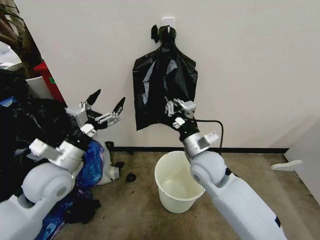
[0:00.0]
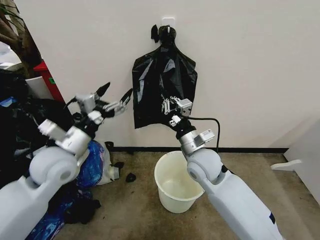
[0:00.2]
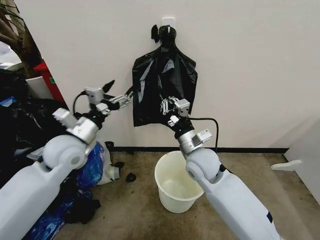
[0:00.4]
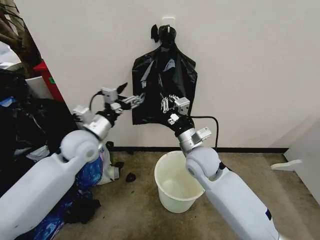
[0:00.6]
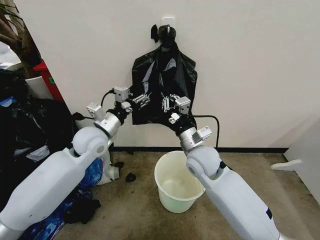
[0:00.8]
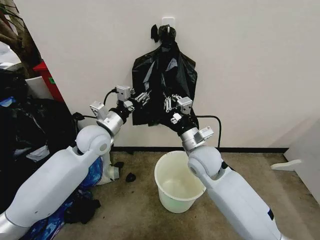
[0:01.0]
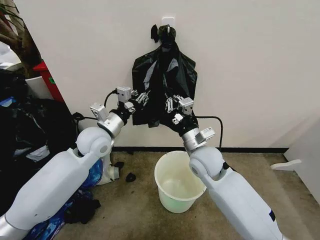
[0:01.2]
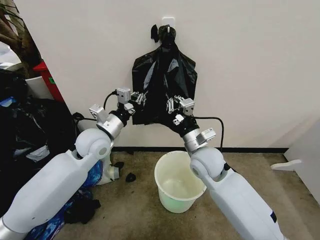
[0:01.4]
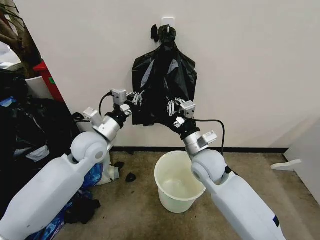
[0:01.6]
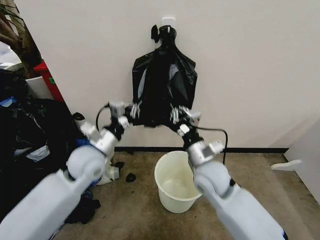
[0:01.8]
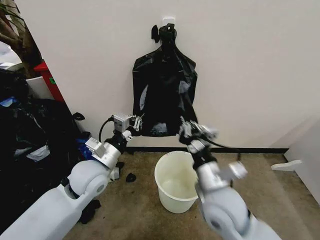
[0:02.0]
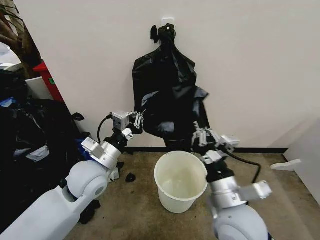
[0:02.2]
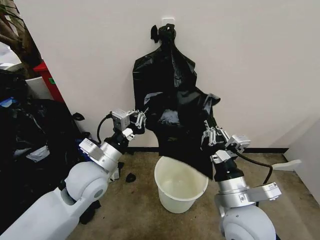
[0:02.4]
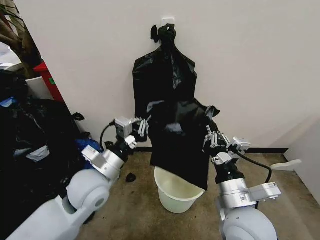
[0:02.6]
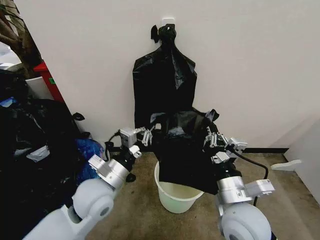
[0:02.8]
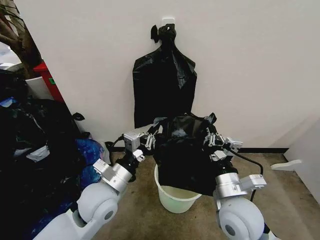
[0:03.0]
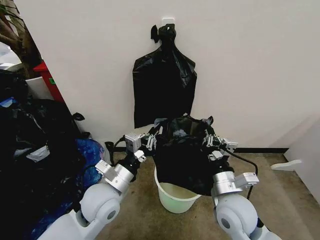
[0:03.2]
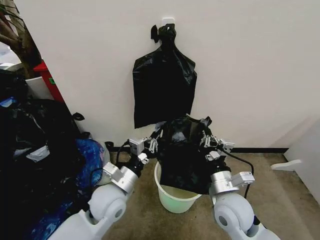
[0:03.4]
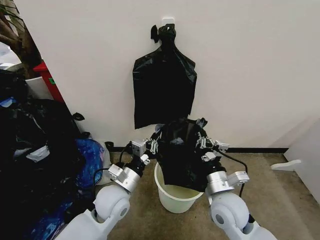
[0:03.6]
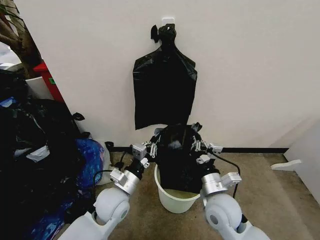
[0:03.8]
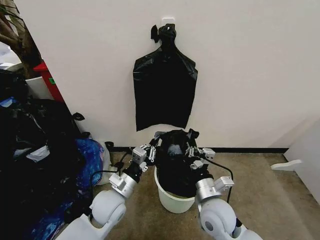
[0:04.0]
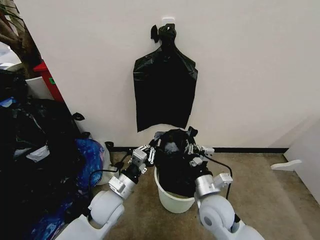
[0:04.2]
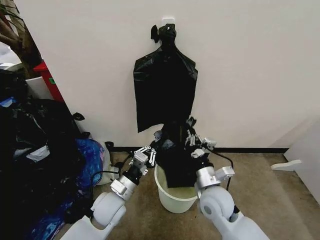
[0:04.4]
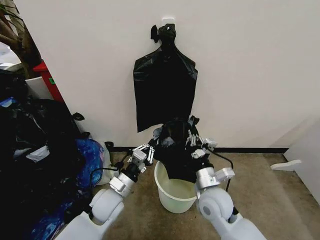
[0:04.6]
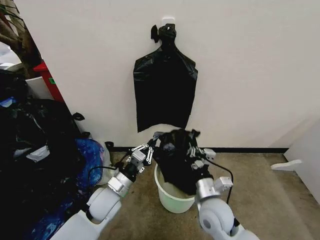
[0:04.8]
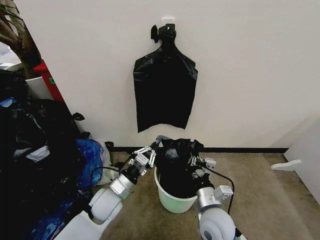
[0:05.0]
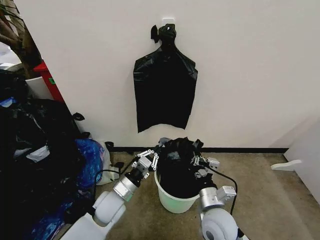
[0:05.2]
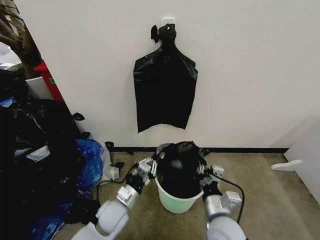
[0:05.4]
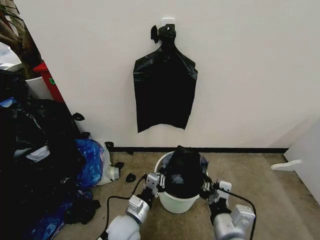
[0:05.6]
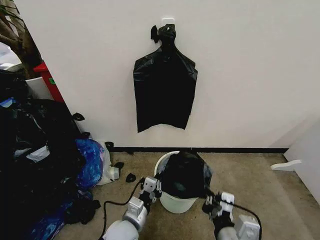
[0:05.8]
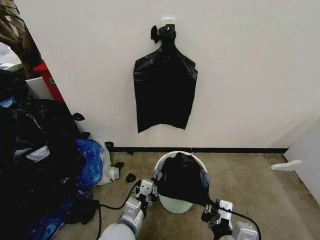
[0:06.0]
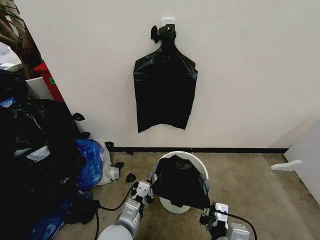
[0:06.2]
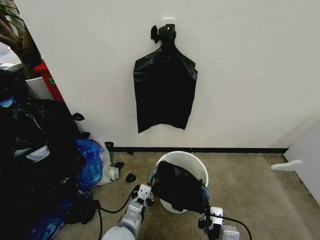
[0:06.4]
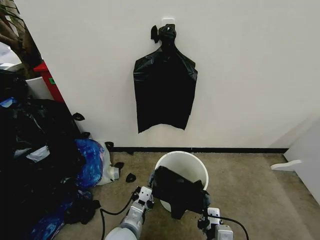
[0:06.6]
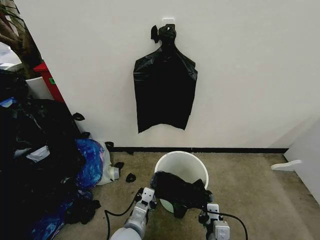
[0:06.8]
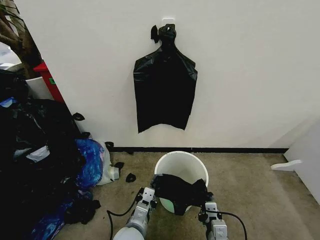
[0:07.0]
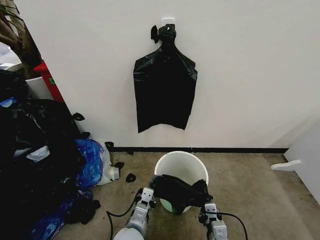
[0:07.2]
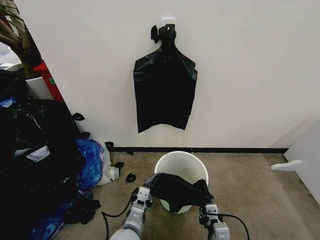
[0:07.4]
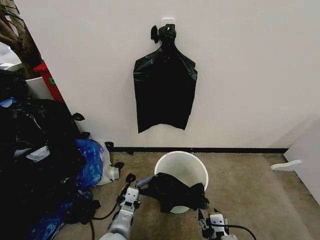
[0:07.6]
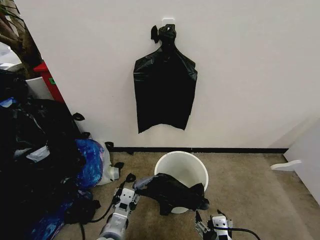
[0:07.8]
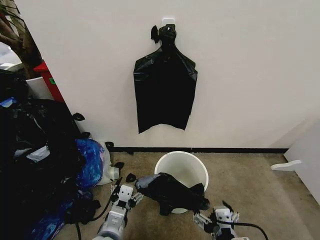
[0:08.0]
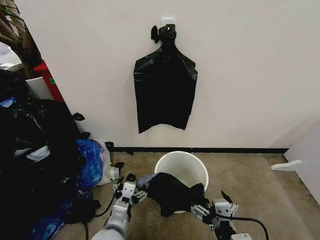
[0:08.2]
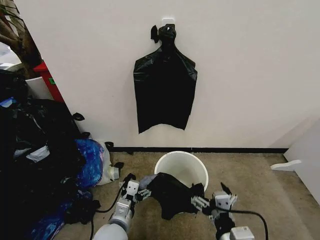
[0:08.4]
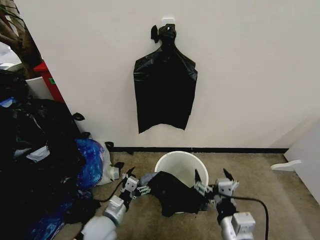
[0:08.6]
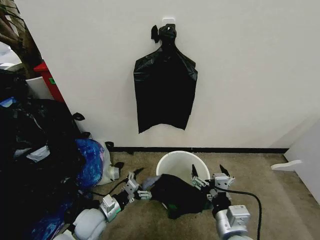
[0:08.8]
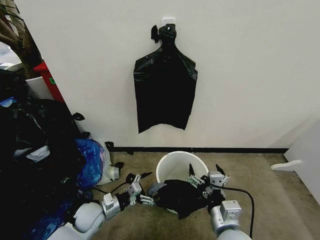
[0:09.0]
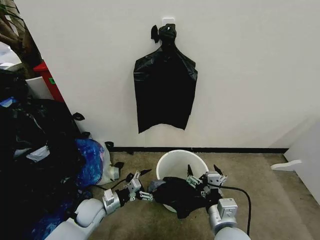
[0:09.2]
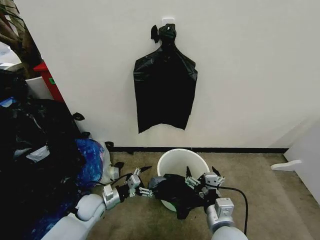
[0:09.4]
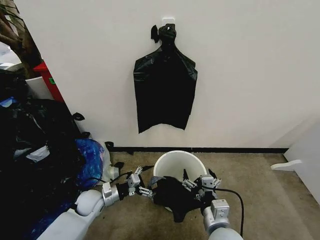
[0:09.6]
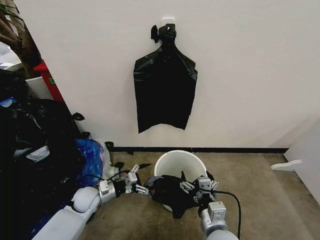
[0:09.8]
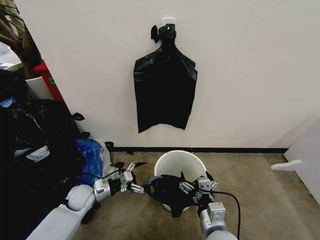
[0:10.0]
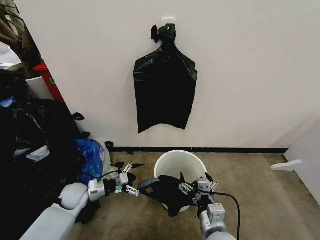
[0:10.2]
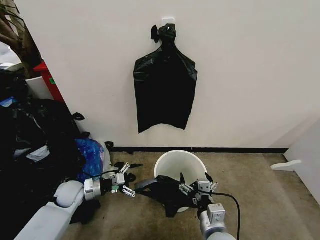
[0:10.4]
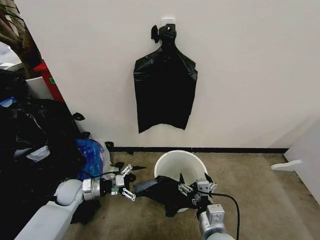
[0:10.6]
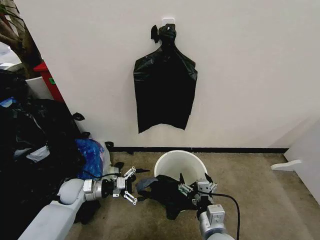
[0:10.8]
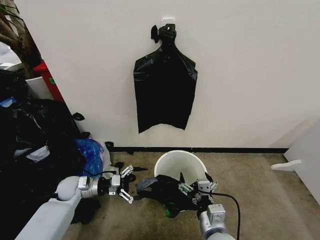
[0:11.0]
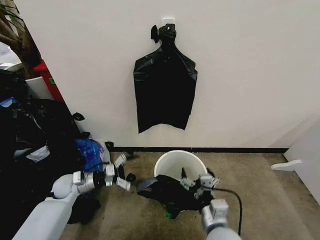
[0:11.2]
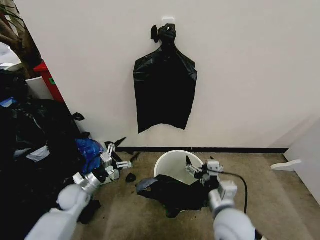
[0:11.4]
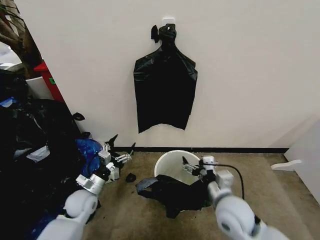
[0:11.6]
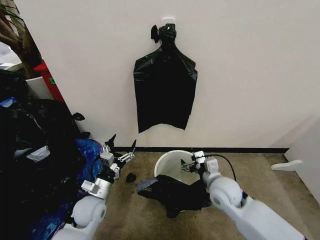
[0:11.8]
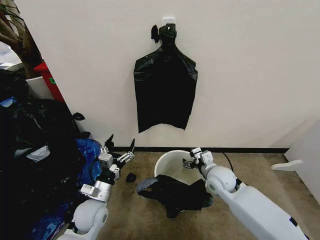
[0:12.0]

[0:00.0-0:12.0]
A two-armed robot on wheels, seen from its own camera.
Task of the whole recording: Place the garbage bag over the trash bin.
0.0 to 1.6 s: The left gripper is displaced forward and to the right by about 10 cm, and closes its fingers.
1.6 to 3.0 s: The right gripper heads backward, covering some 15 cm, while the left gripper heads backward and downward, covering approximately 15 cm.
3.0 to 4.4 s: The left gripper goes approximately 10 cm downward. Meanwhile the right gripper goes about 10 cm downward and forward.
4.4 to 6.0 s: The right gripper moves backward, some 20 cm. The left gripper heads backward, covering some 10 cm.
6.0 to 7.6 s: The left gripper opens. The right gripper goes some 5 cm downward, and opens up.
7.6 to 9.0 s: The right gripper shifts approximately 10 cm forward, and opens its fingers; the left gripper travels to the left, forward and downward by approximately 20 cm, and opens.
9.0 to 10.4 s: The left gripper goes about 10 cm to the left and forward.
10.4 to 12.0 s: The right gripper goes some 20 cm forward. Meanwhile the left gripper goes approximately 15 cm to the right and backward.

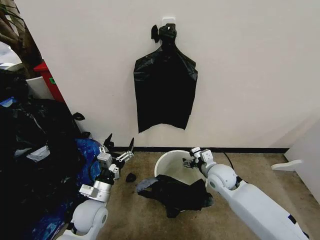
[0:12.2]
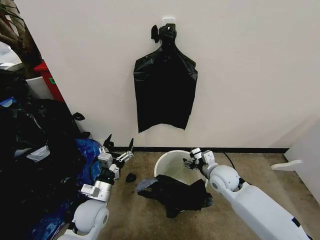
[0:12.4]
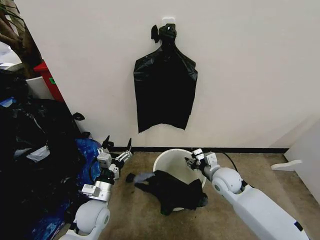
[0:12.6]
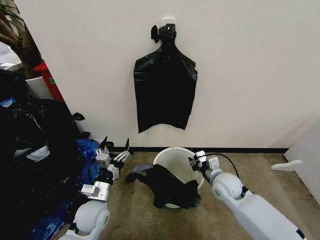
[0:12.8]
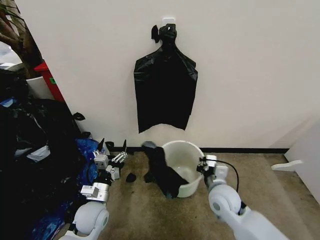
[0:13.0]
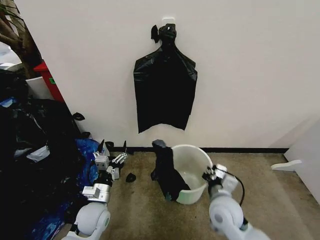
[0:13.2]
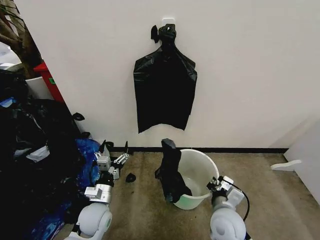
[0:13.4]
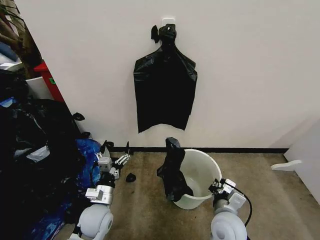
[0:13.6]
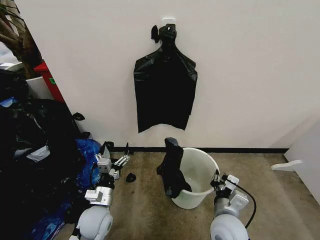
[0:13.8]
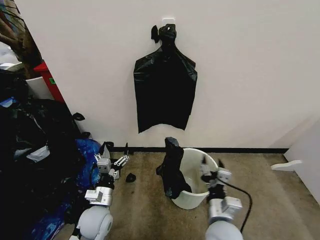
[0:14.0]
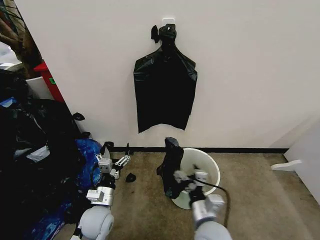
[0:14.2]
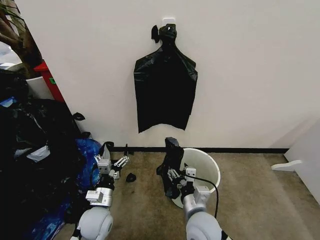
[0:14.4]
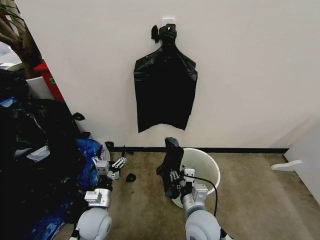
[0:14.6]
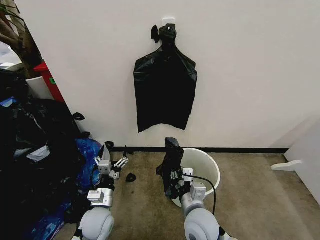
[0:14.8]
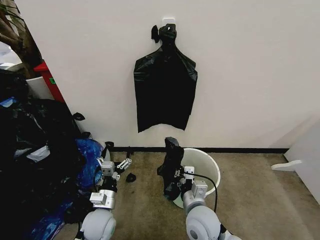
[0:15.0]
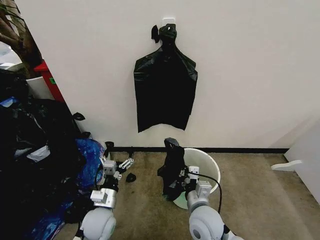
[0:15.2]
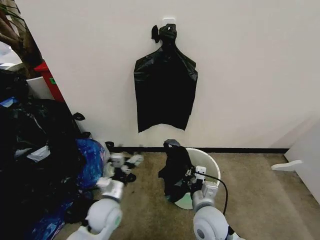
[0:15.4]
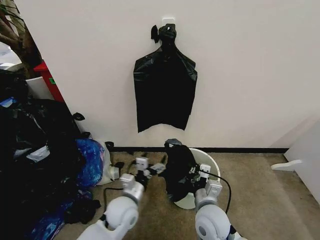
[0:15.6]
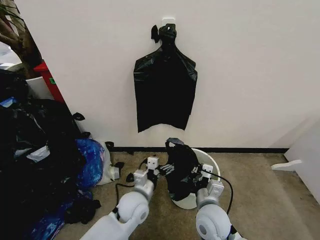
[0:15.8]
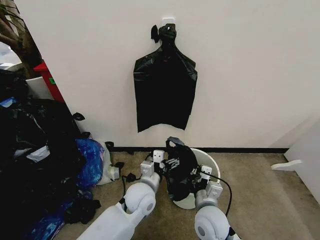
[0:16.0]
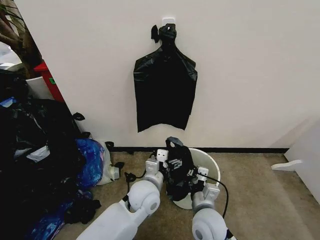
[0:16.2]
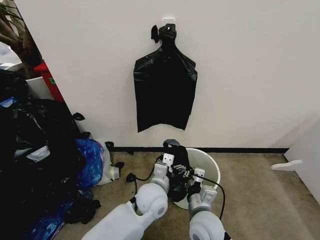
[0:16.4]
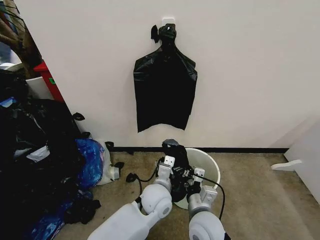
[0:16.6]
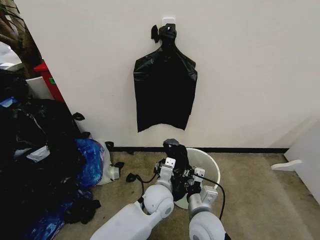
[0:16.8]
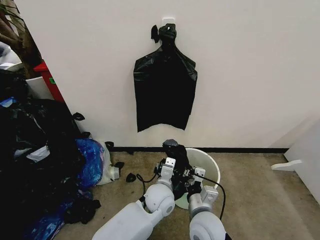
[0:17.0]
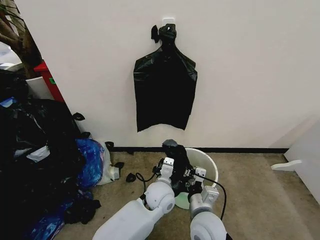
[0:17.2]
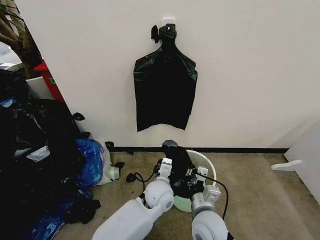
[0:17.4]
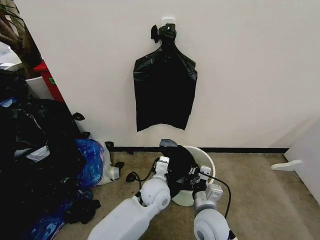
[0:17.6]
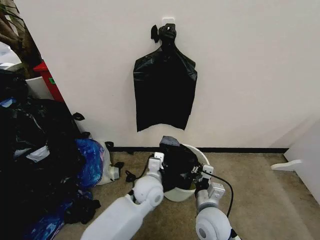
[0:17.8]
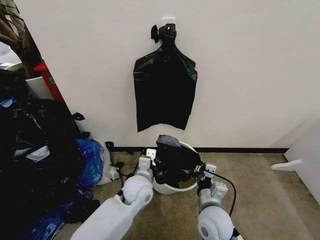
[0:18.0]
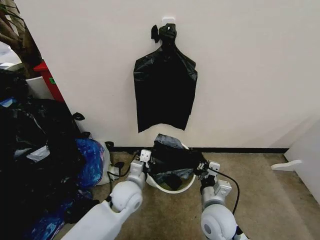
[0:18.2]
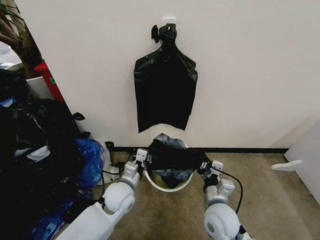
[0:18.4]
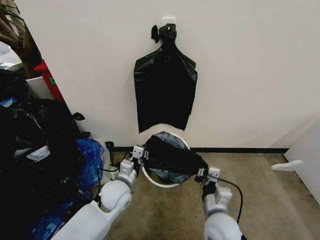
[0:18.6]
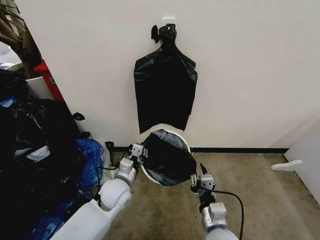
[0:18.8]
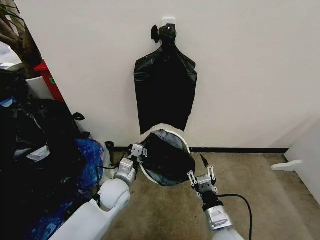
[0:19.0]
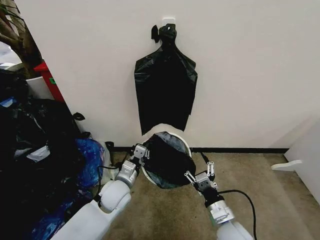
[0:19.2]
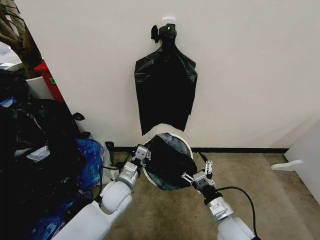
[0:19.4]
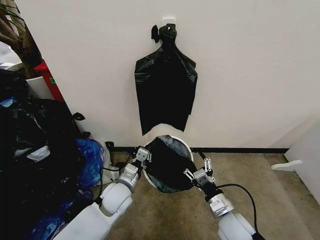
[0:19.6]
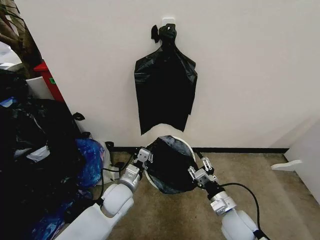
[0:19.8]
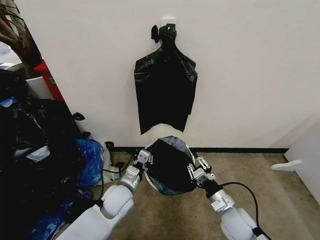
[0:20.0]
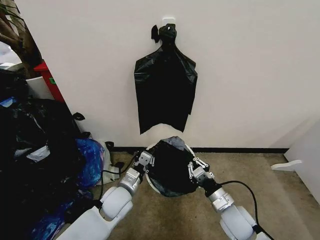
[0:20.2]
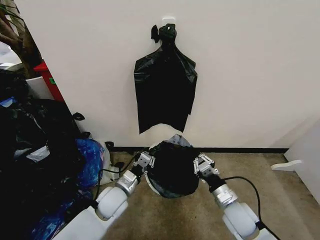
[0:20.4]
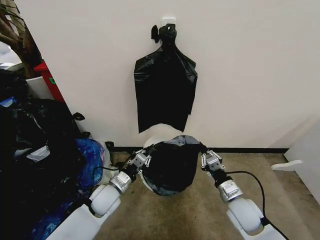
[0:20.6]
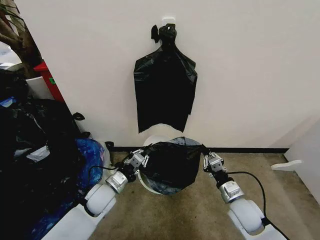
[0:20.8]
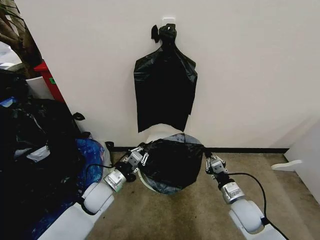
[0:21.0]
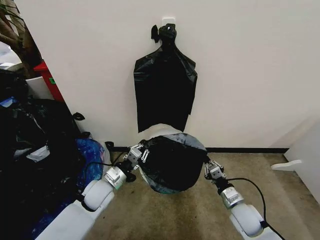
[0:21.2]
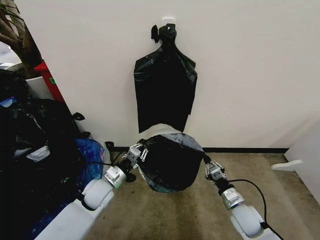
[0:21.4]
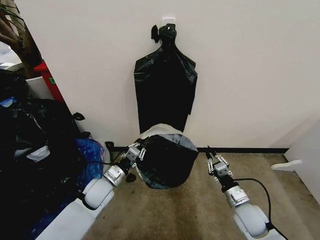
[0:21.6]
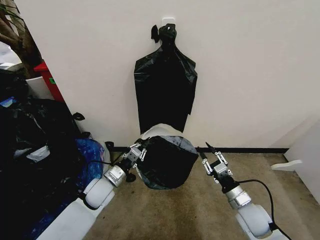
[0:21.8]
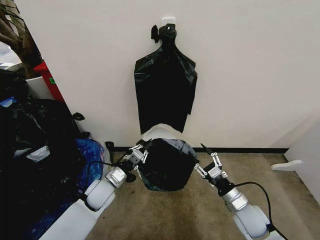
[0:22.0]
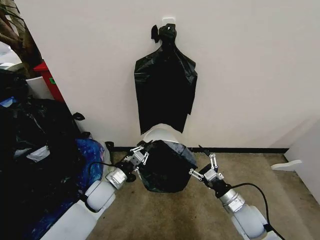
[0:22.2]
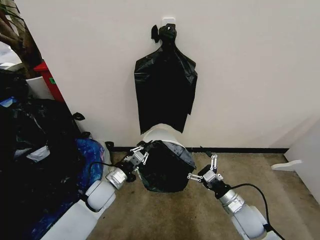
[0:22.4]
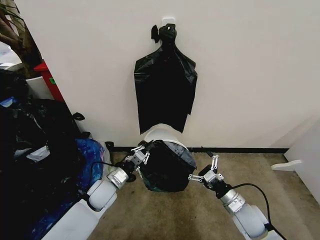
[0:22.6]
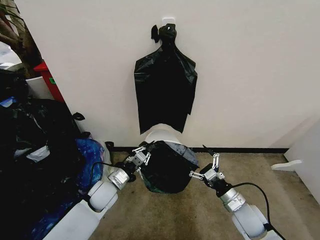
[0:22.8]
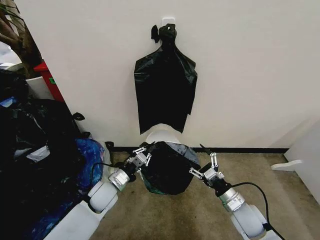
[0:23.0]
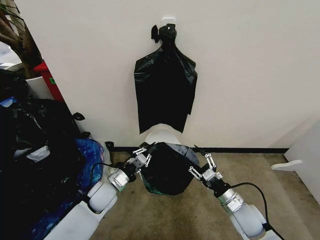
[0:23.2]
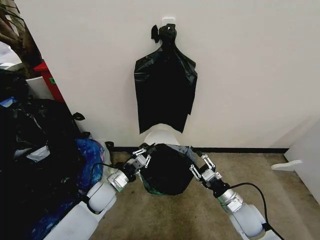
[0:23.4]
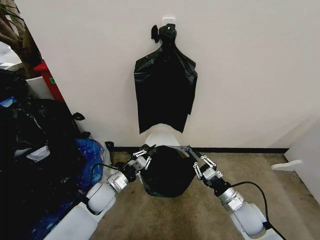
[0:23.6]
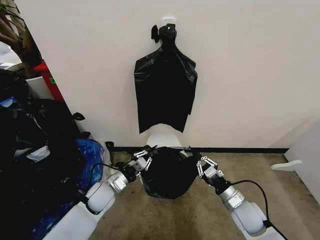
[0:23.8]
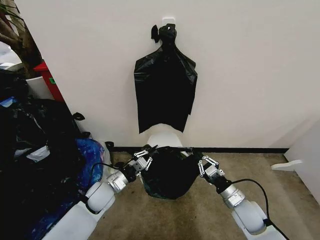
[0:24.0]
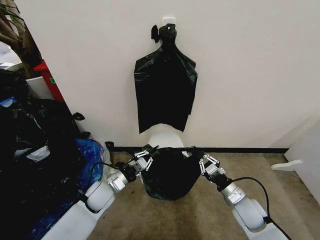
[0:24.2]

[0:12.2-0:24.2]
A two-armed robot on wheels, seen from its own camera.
Task of the whole recording: Place the garbage bag over the trash bin.
12.2 to 13.8 s: The right gripper heads backward, covering some 15 cm, and closes.
13.8 to 15.2 s: The right gripper goes approximately 5 cm to the left, and opens, then closes once more.
15.2 to 16.6 s: The left gripper shifts about 20 cm to the right.
16.6 to 18.2 s: The left gripper travels to the left by about 10 cm, and closes up.
18.2 to 19.8 s: The right gripper moves to the right, some 5 cm, and opens up.
19.8 to 21.2 s: The right gripper is displaced to the right by roughly 5 cm, and closes. Meanwhile the left gripper shifts roughly 5 cm to the left.
21.2 to 22.6 s: The right gripper opens.
22.6 to 24.2 s: The right gripper closes its fingers.
